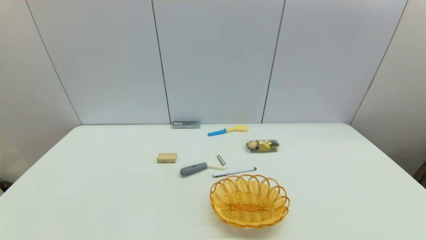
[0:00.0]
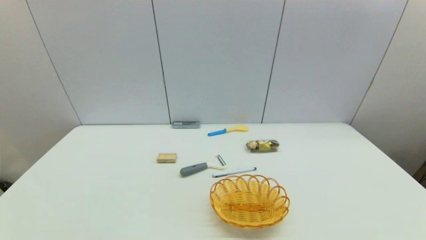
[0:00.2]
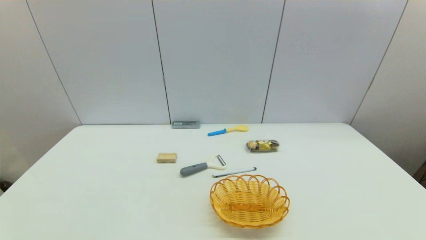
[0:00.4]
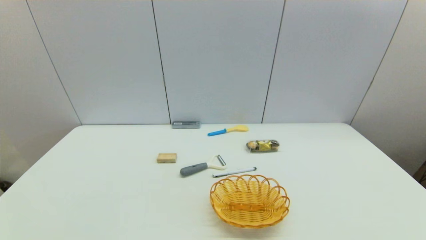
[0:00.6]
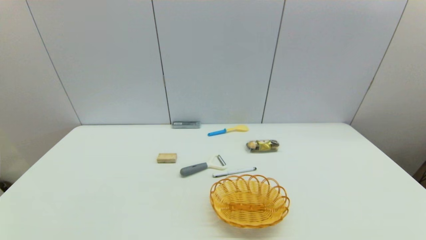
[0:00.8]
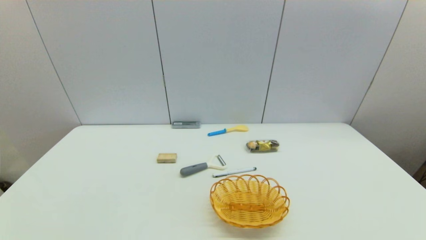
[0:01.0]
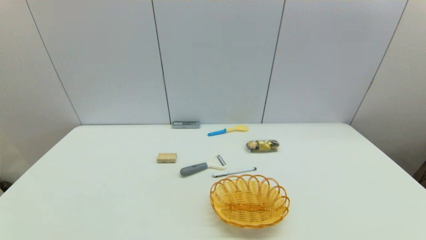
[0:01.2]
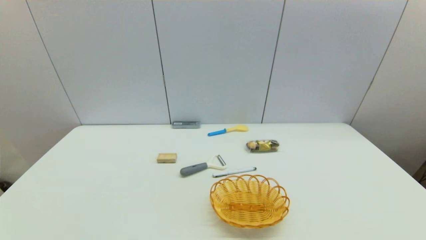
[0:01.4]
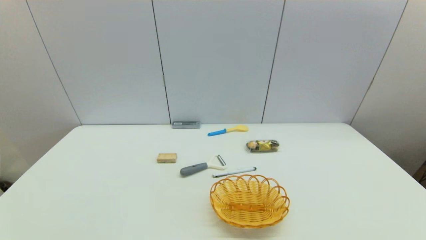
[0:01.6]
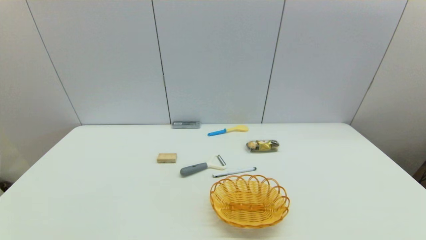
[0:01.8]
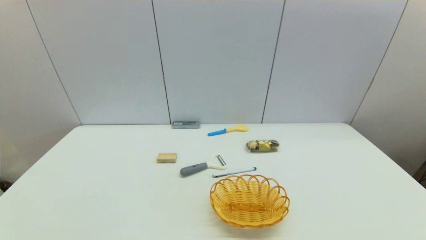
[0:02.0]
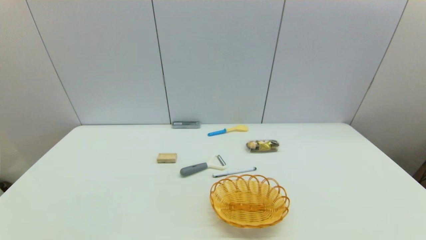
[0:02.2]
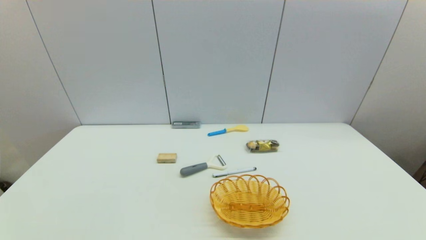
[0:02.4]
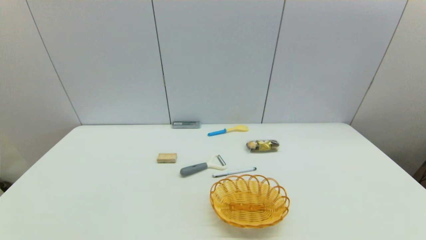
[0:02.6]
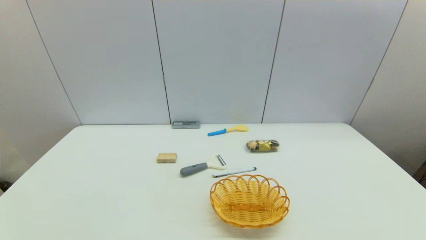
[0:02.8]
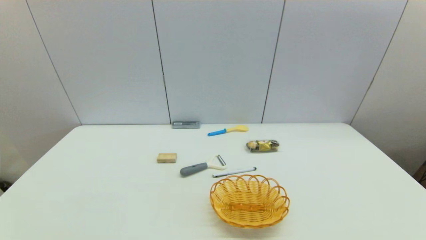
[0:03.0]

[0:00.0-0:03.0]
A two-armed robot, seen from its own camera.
Task of the whole recording: put the pen in the designated position.
0:01.6 to 0:03.0: The two grippers keep their place.
